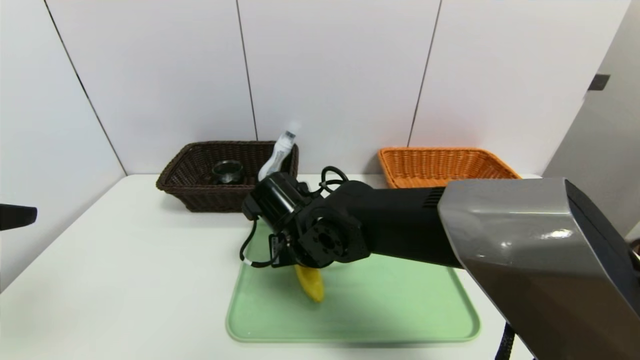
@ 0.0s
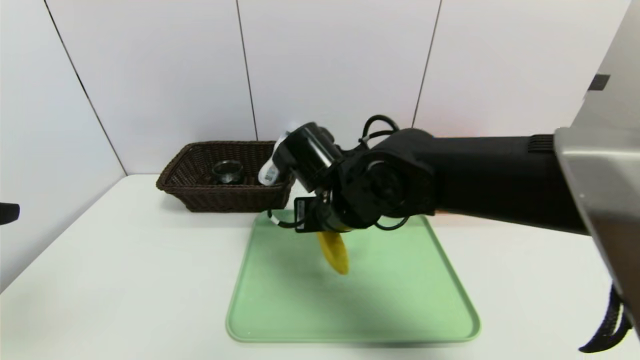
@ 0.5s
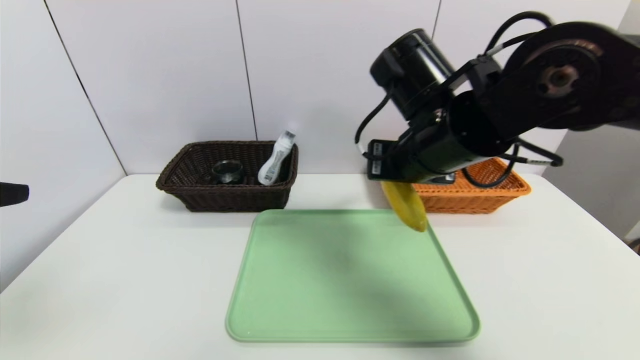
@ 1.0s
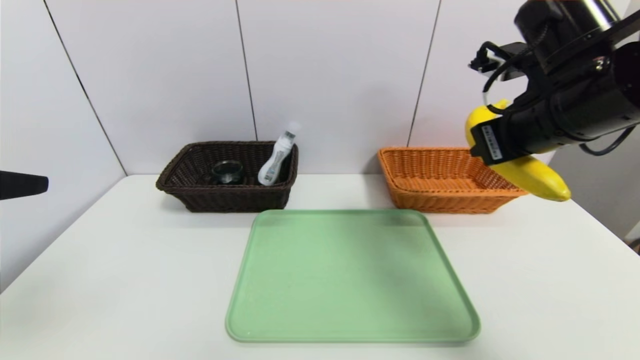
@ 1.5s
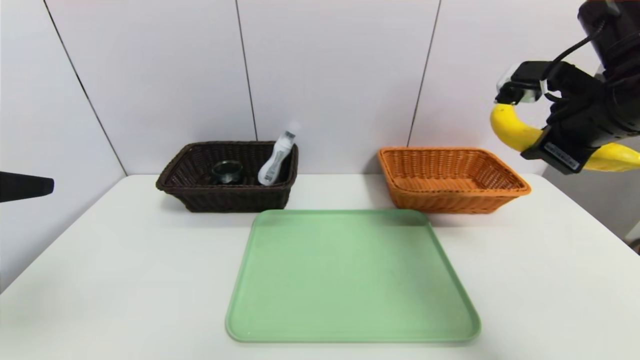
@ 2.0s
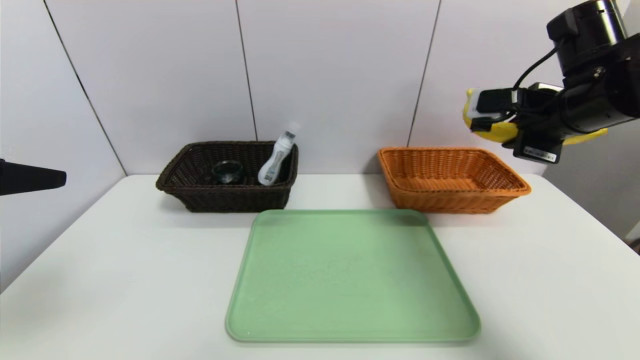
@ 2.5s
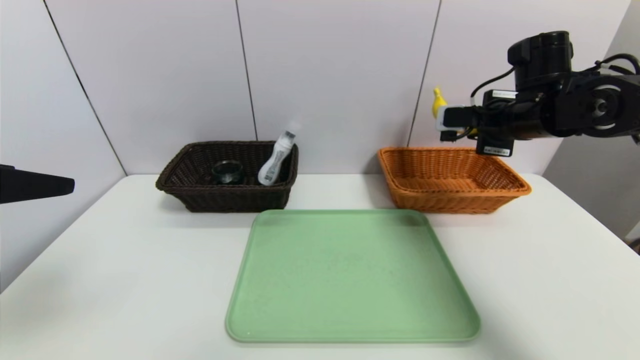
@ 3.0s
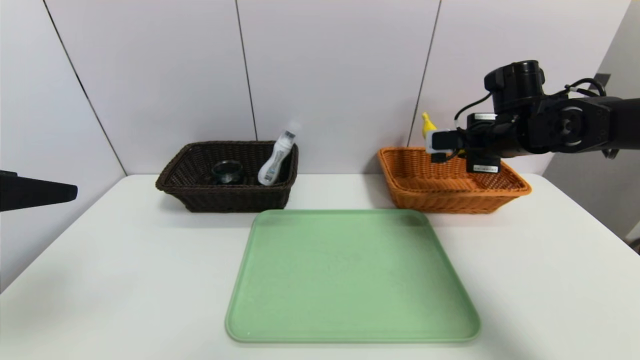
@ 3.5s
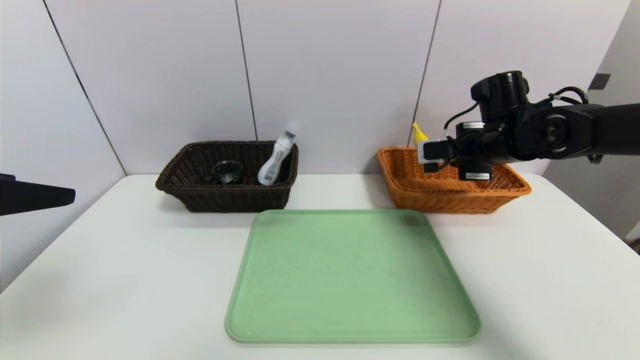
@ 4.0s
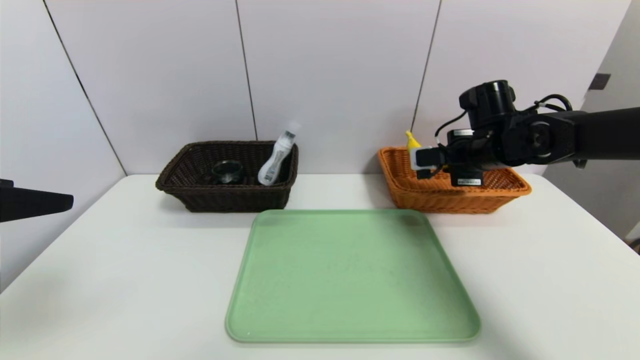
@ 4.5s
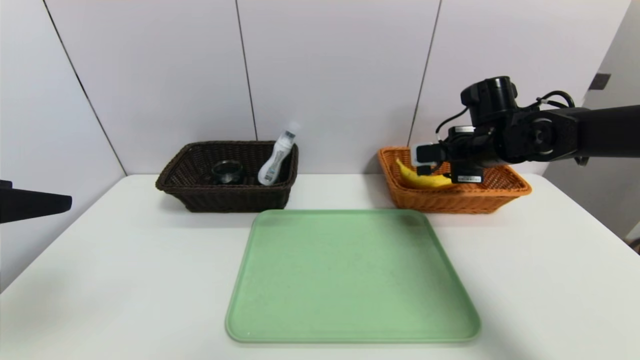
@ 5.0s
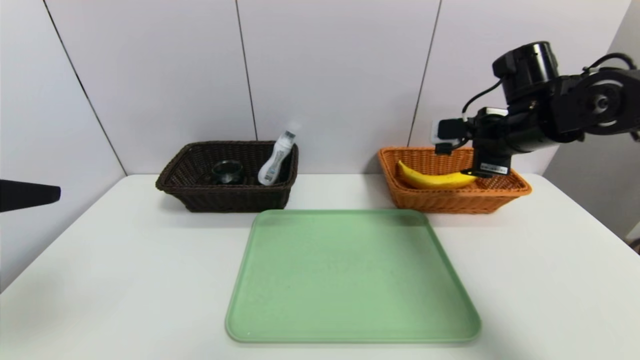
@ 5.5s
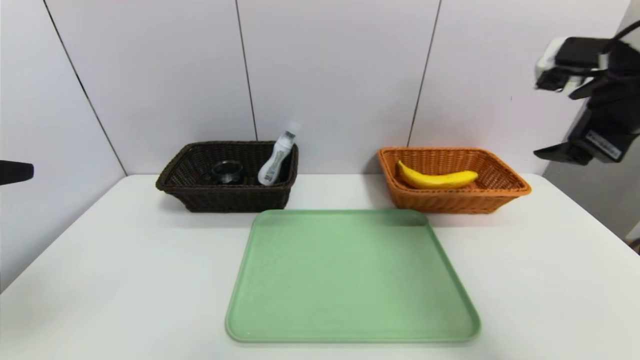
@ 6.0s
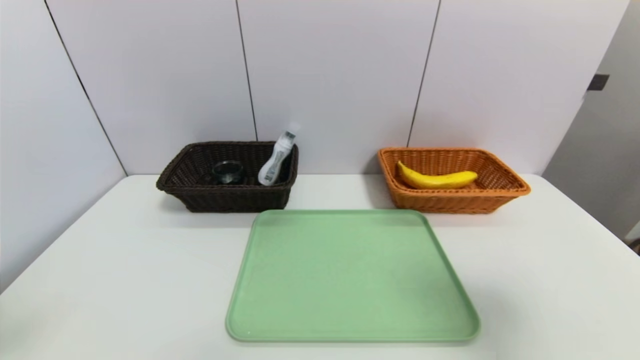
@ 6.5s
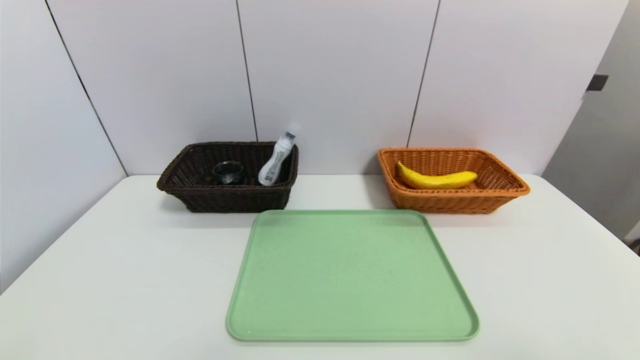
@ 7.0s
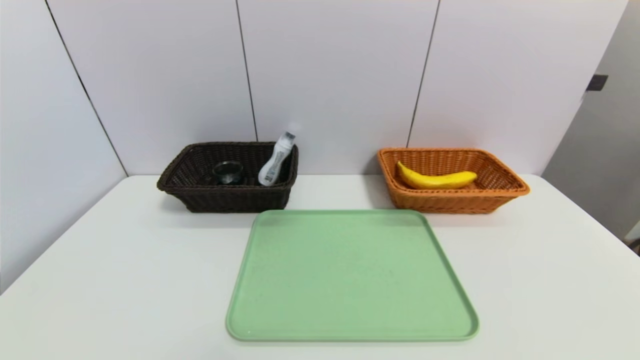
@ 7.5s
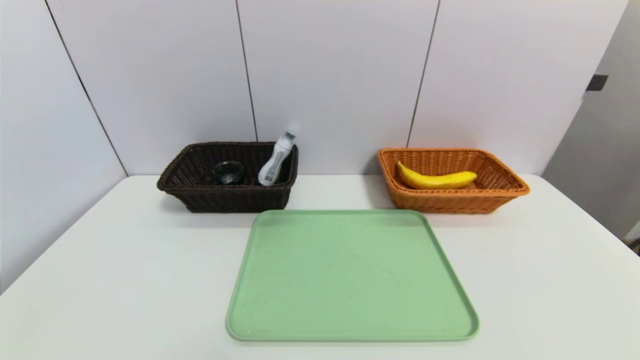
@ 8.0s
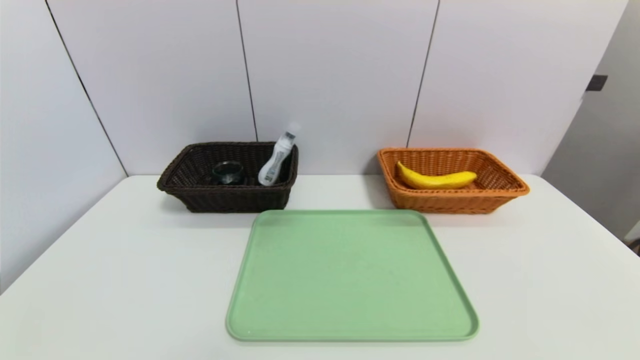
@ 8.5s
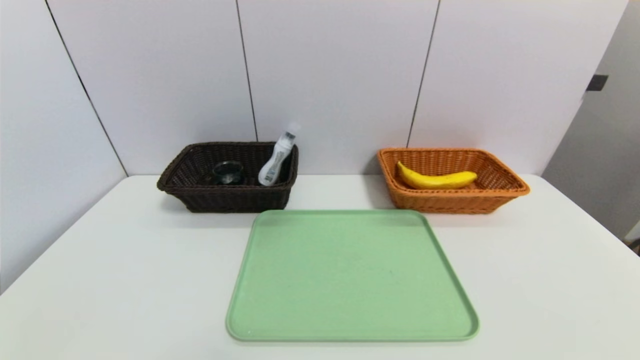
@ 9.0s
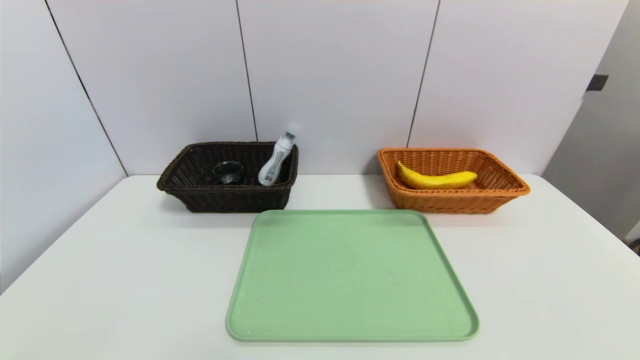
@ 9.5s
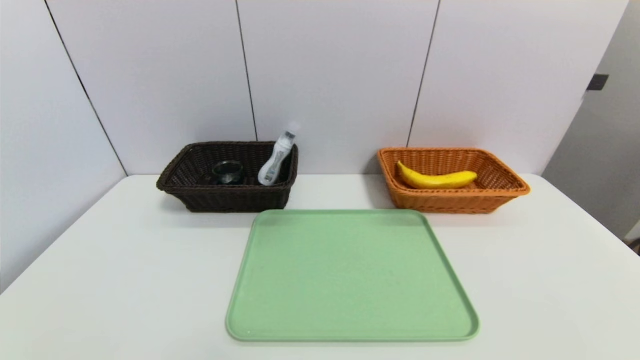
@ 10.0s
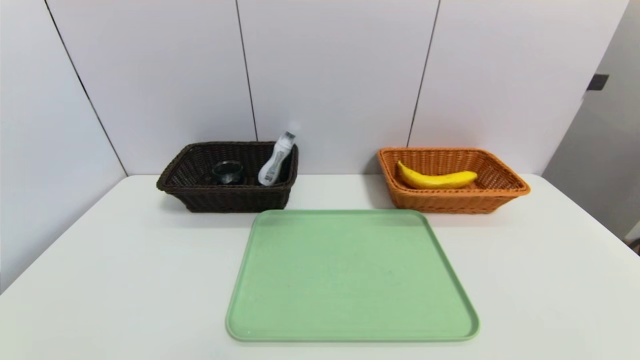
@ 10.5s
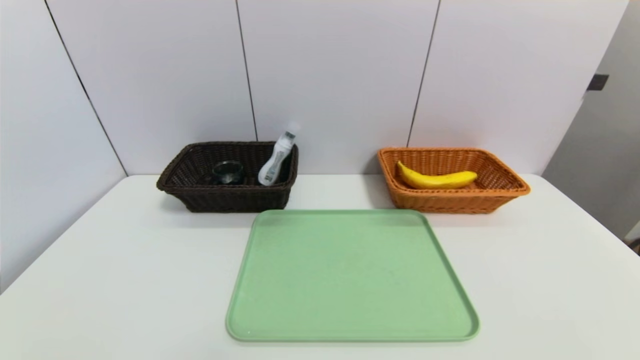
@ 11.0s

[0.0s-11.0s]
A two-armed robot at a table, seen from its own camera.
Task of the whole recording: place the food in the right basket with the right gripper, and place the non food items in the left basket with the left gripper.
Step, 0.0s to 5.0s: Grasp the banana and put it in the right basket.
0.0s to 2.0s: The right gripper goes approximately 35 cm to the right and upward.
2.0s to 3.5s: The right gripper goes about 15 cm forward and downward.
3.5s to 5.5s: The right gripper opens its fingers.
5.5s to 7.5s: The left gripper moves backward and downward, roughly 20 cm, while the right gripper travels backward by approximately 40 cm.

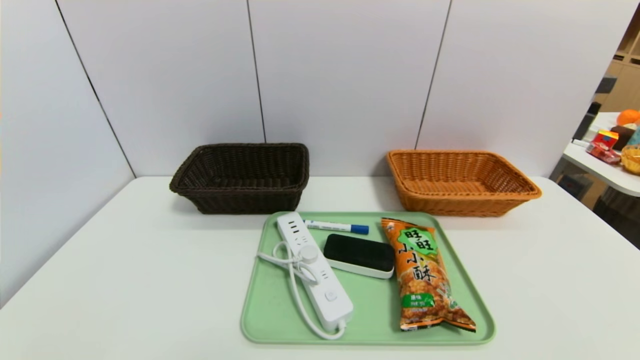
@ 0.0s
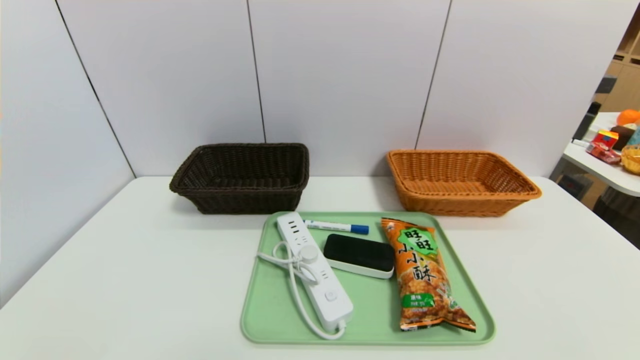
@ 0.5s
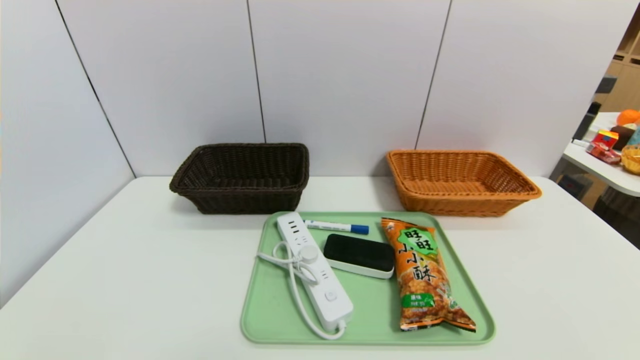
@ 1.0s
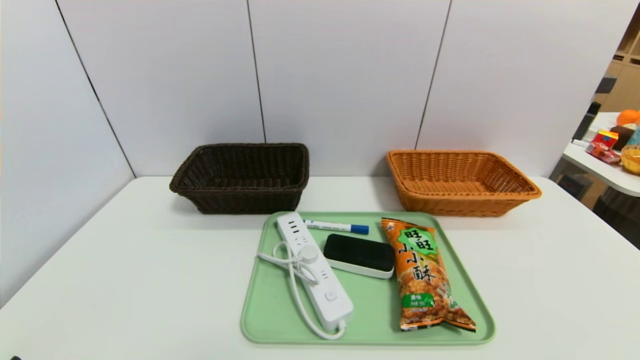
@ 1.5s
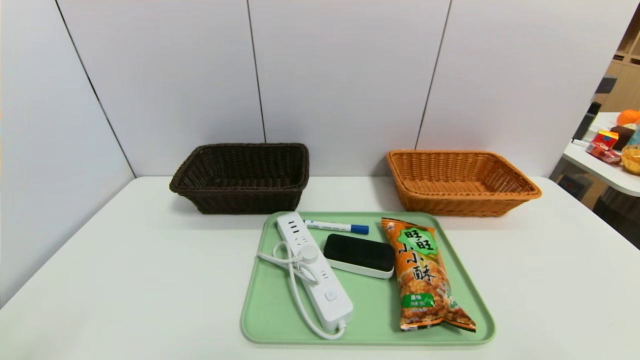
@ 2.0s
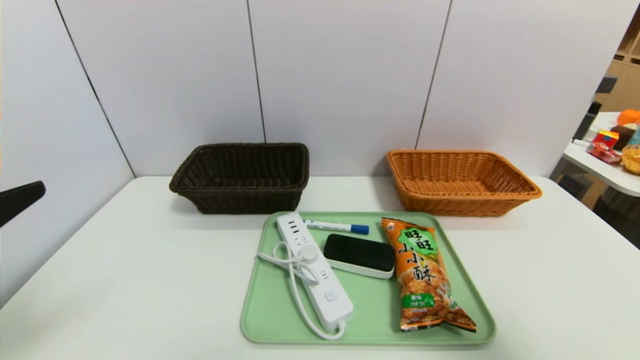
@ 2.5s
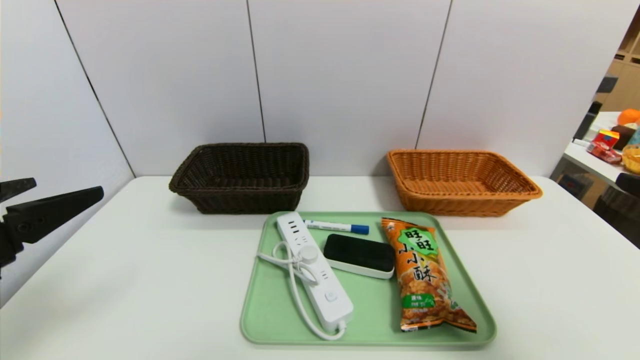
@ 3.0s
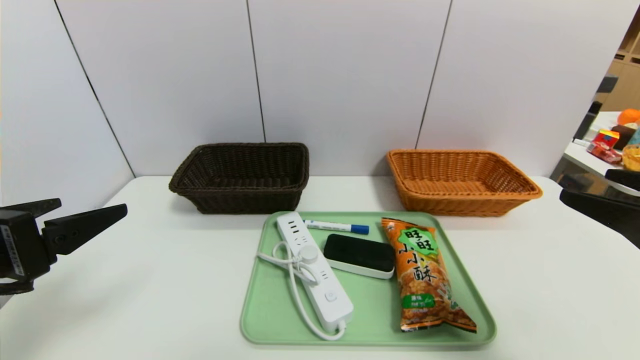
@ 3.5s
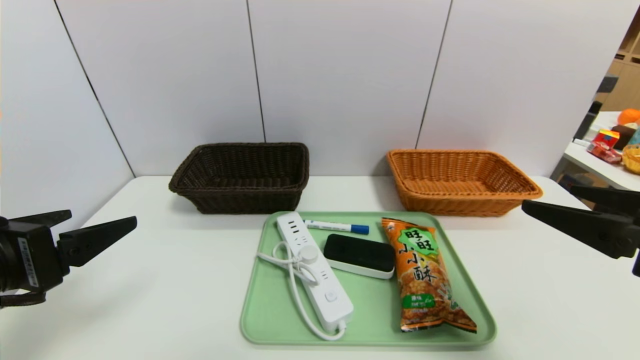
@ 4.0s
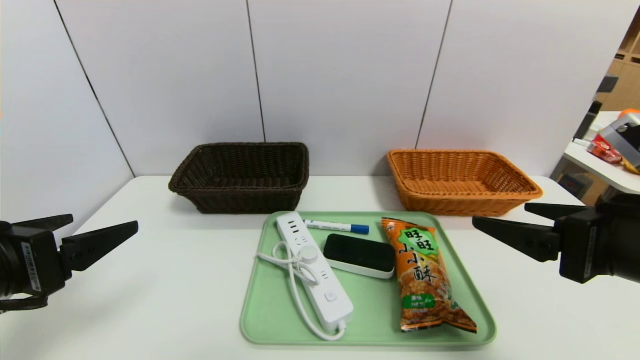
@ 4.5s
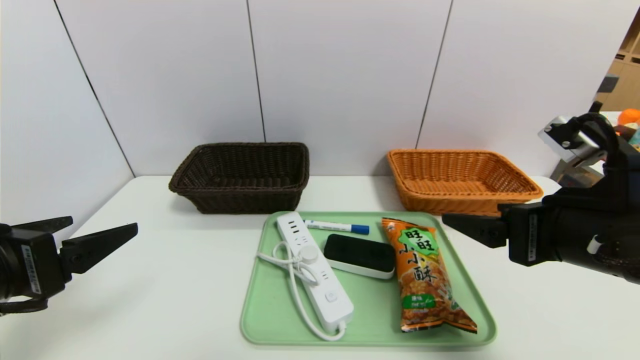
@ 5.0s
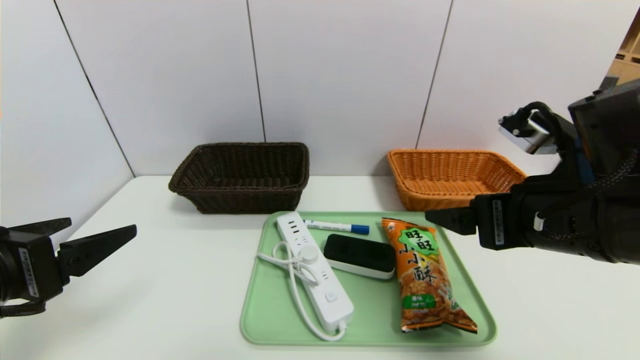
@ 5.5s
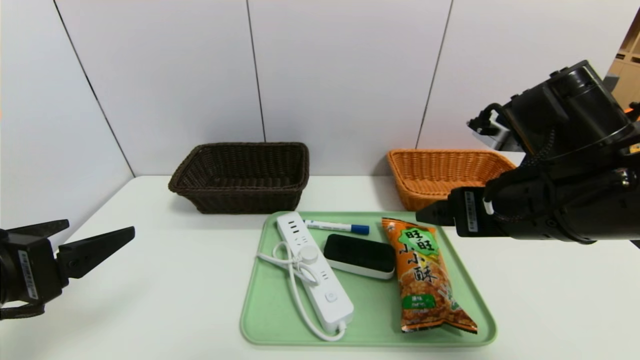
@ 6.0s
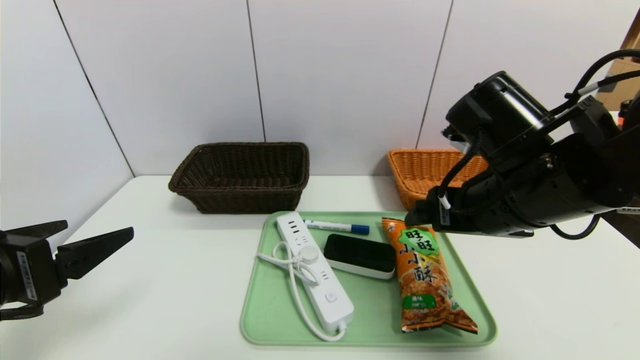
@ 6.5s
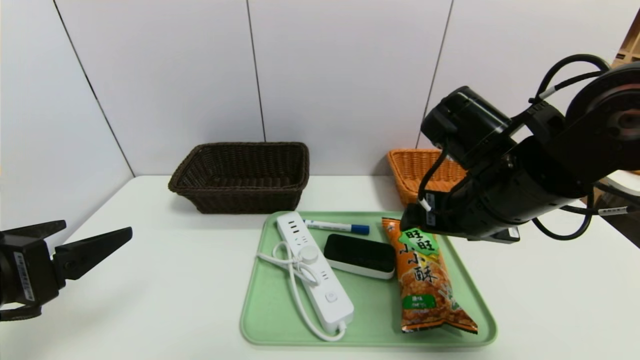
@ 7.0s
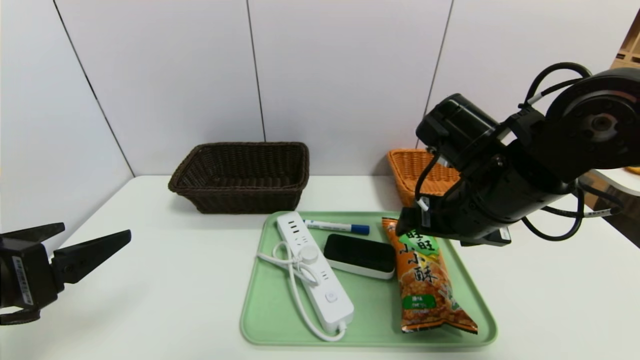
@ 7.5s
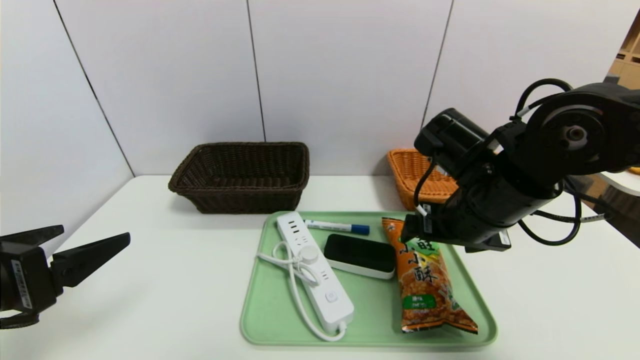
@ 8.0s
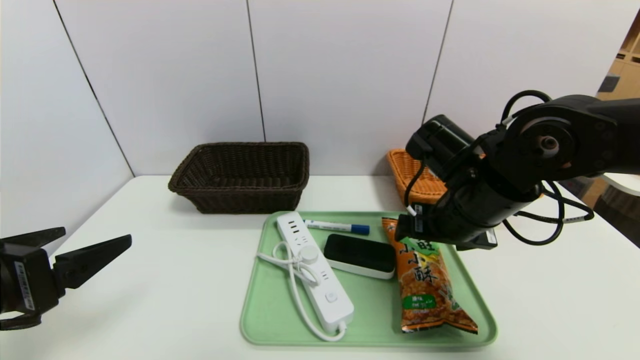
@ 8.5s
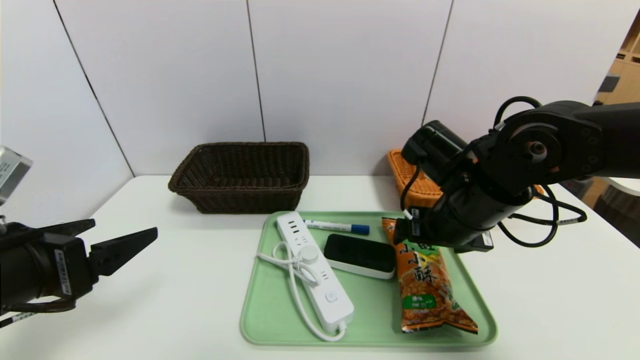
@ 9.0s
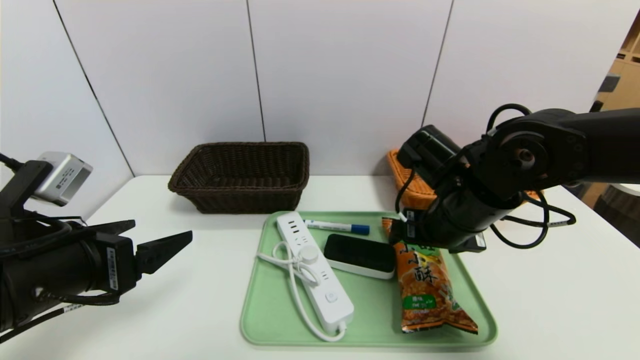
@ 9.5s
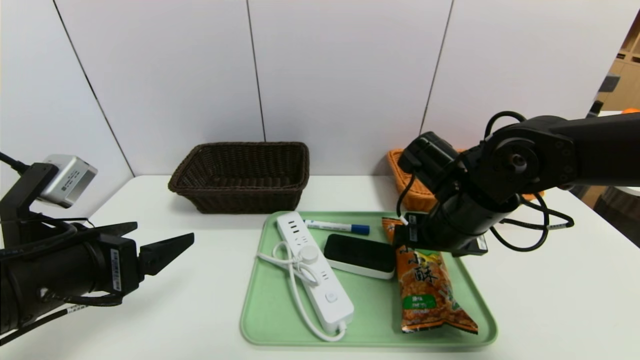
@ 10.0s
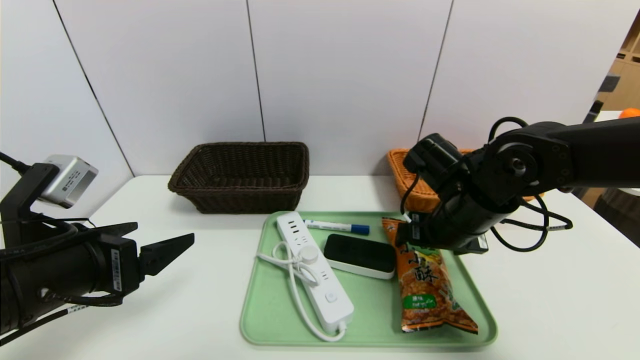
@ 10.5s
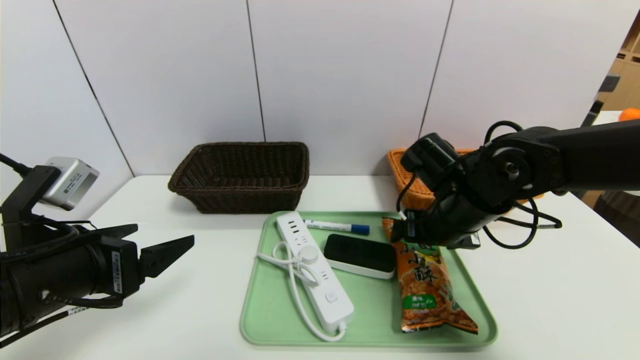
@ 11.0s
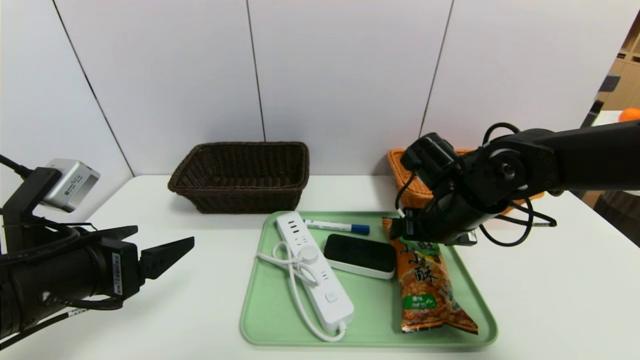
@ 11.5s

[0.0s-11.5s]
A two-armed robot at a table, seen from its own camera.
Task of the whole recording: place the food in the right basket with the right gripper, and place the non food items in the left basket with the left gripper.
2.0s to 4.0s: The left gripper heads forward, covering approximately 10 cm, while the right gripper travels forward and to the left by approximately 15 cm.
4.0s to 6.0s: The right gripper travels to the left and forward by roughly 10 cm.
6.0s to 7.5s: The right gripper shifts by roughly 5 cm.
7.5s to 9.5s: The right gripper moves about 5 cm, while the left gripper moves about 5 cm.
9.5s to 11.5s: The grippers stay close to where they were, moving slightly.
